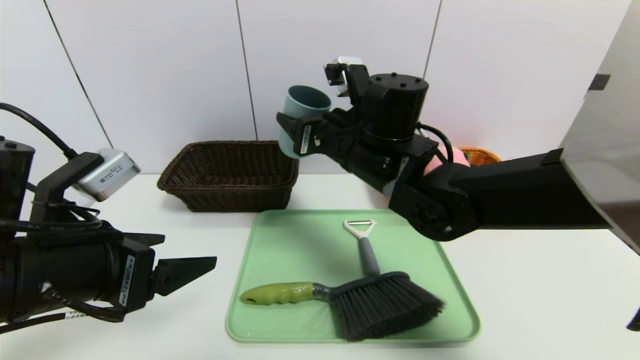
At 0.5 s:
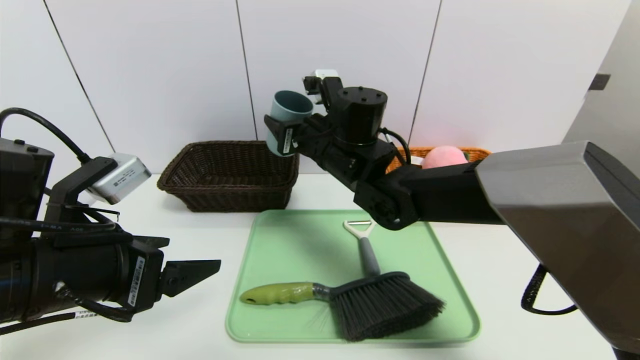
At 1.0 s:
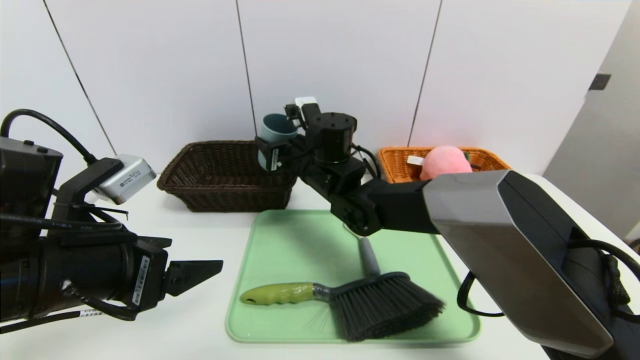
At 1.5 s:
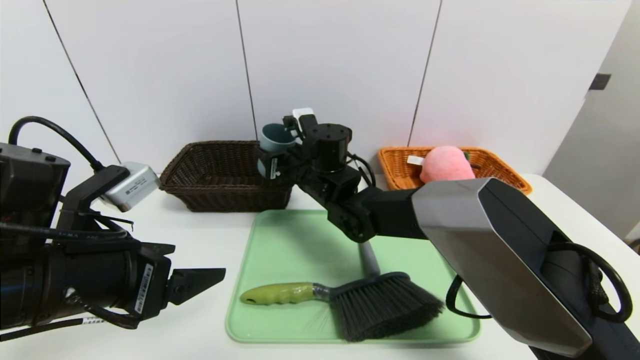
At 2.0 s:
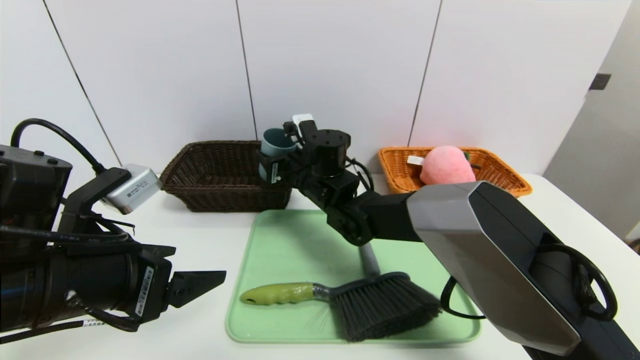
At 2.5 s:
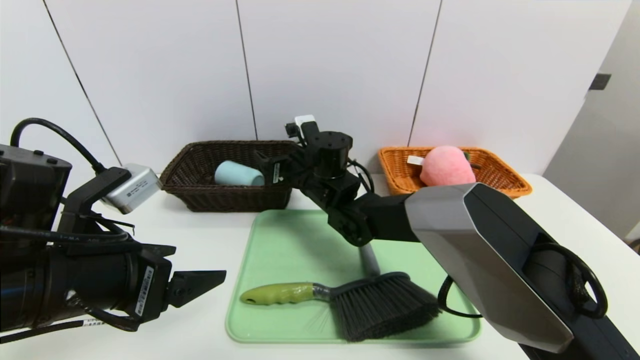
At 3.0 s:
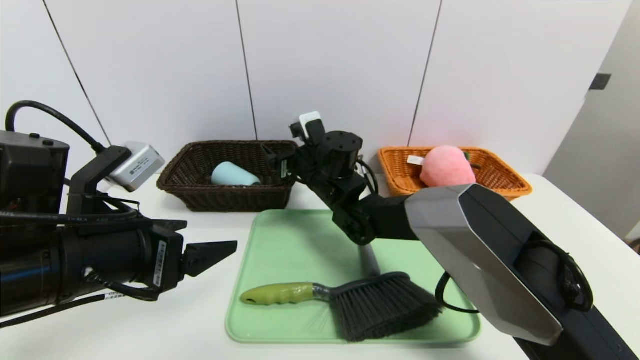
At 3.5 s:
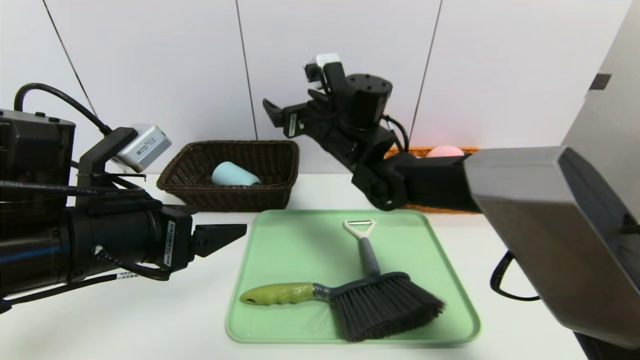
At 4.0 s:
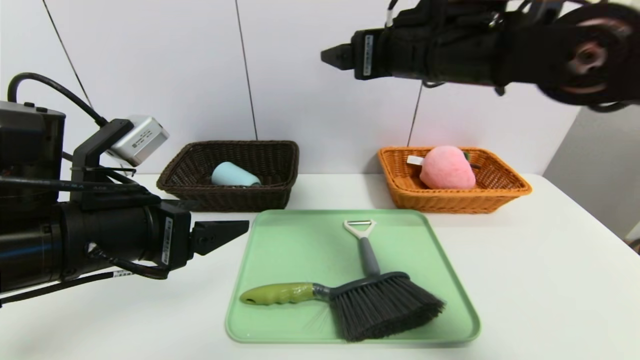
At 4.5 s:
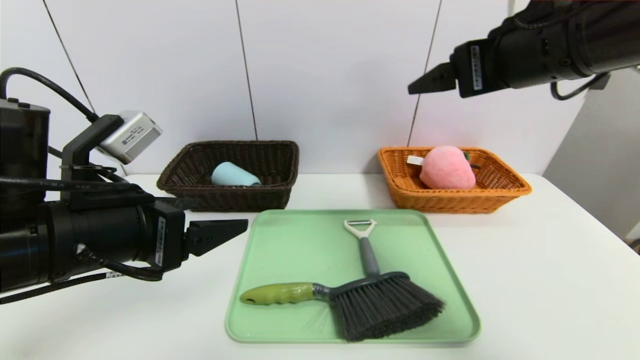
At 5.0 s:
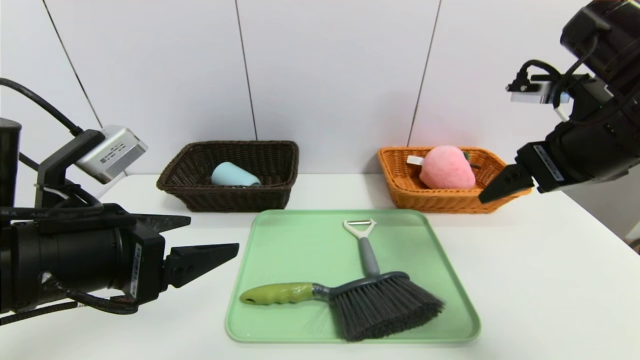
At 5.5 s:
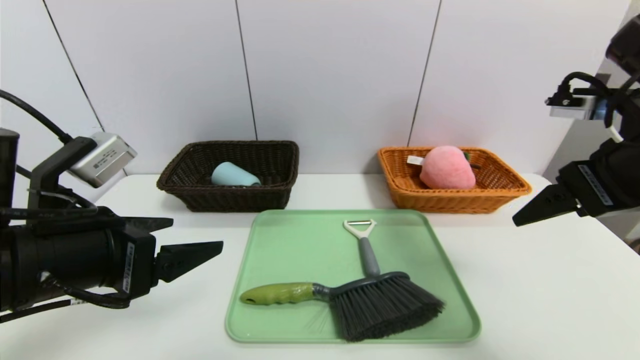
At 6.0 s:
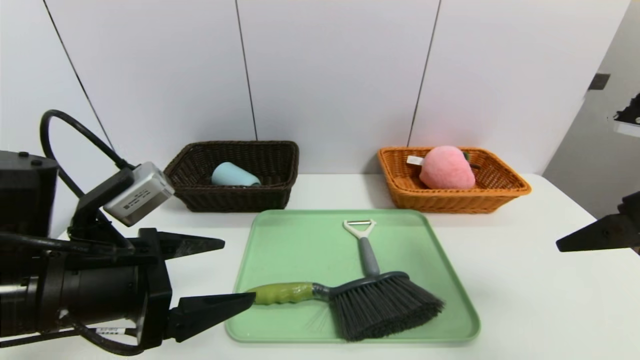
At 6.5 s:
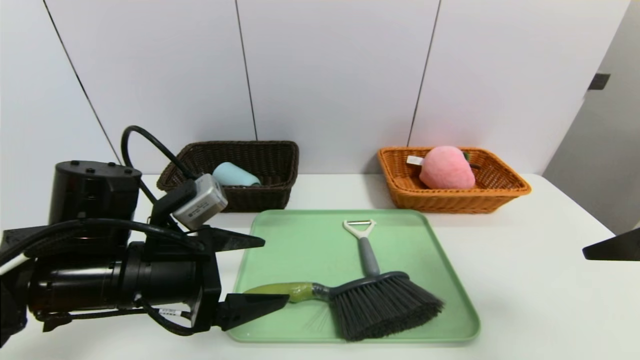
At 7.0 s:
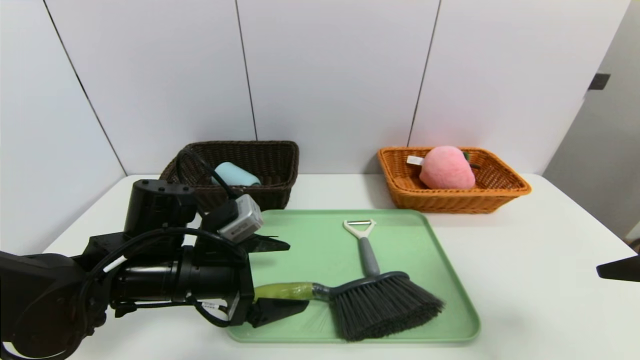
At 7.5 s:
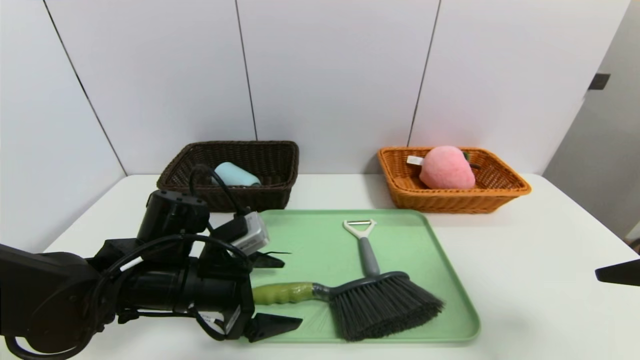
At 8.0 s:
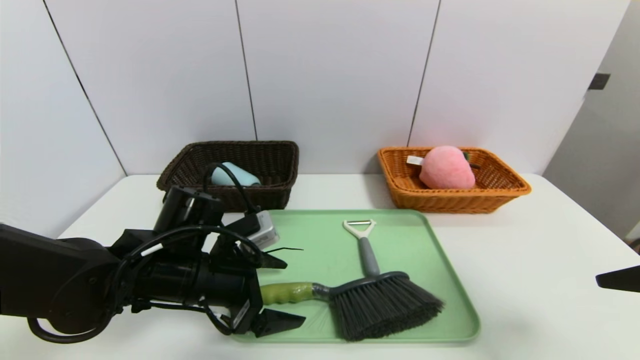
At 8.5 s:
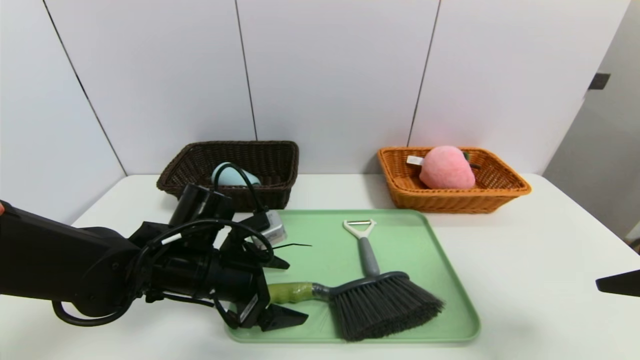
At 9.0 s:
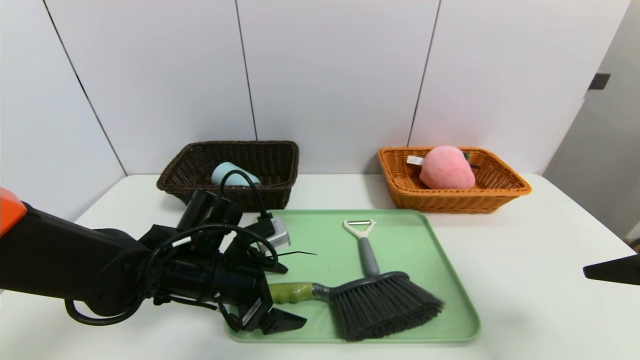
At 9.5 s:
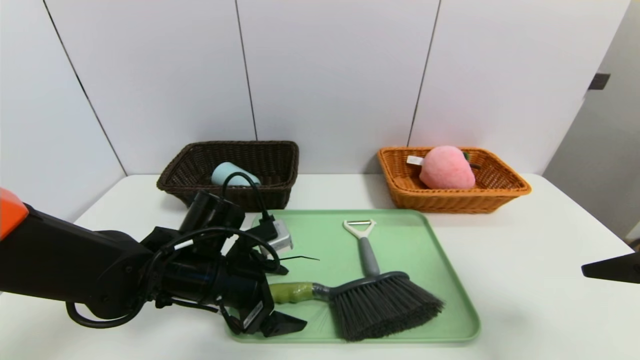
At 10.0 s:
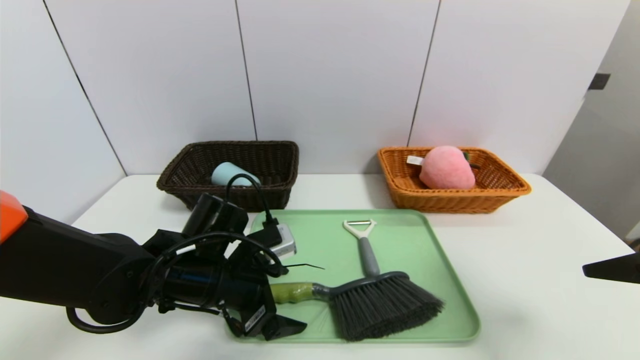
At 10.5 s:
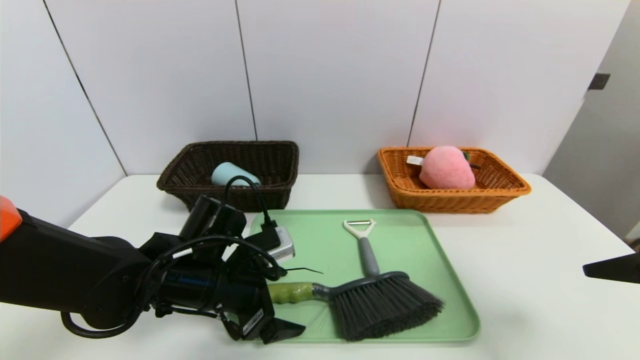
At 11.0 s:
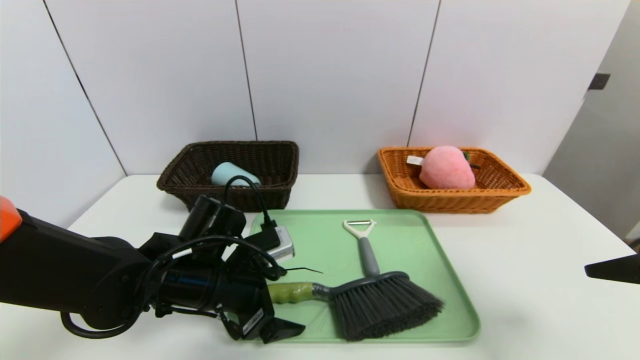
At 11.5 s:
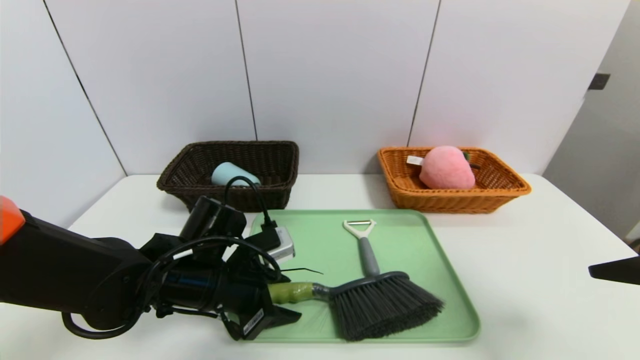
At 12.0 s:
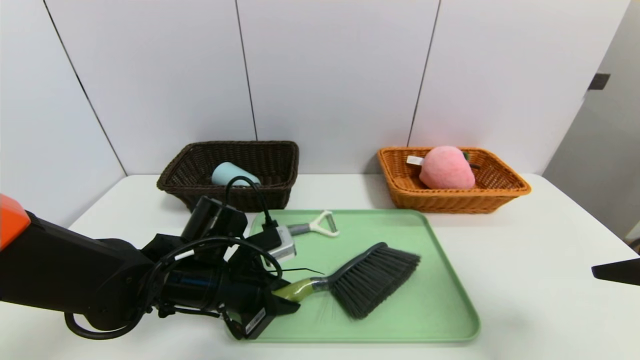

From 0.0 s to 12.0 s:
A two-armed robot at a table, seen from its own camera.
Task of the whole recording: place the food in the right basket with the right gripper, and place the non food items in the left basket with the left gripper.
From 0.0 s to 2.0 s: The right gripper heads downward, forward and to the left, covering approximately 15 cm.
From 2.0 s to 4.0 s: The right gripper heads upward, to the right and backward, covering roughly 25 cm, and opens its fingers.
From 4.0 s to 6.0 s: The right gripper shifts roughly 25 cm to the right and backward.
From 6.0 s to 8.0 s: The right gripper shifts by about 5 cm; the left gripper heads downward, forward and to the right, covering approximately 15 cm.
From 8.0 s to 10.0 s: There are only small adjustments of the grippers.
From 10.0 s to 12.0 s: The left gripper closes its fingers.

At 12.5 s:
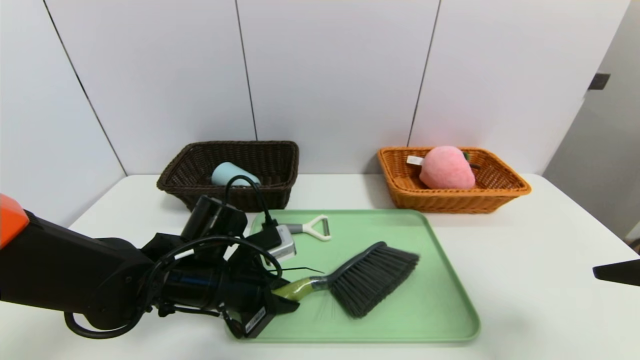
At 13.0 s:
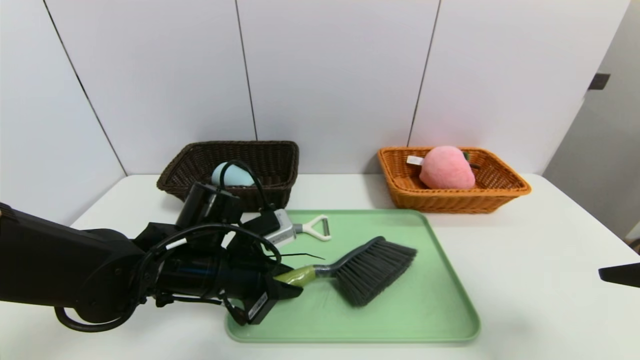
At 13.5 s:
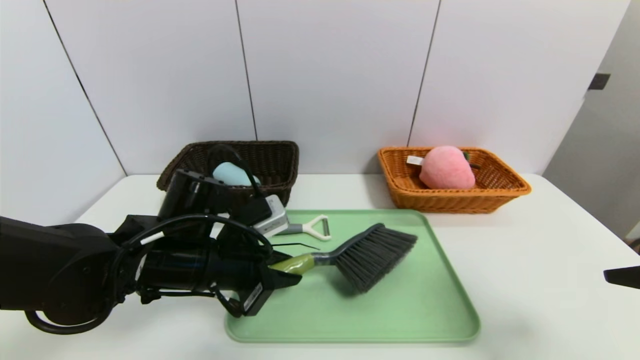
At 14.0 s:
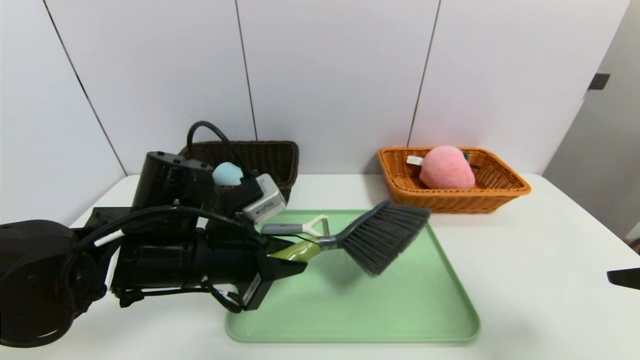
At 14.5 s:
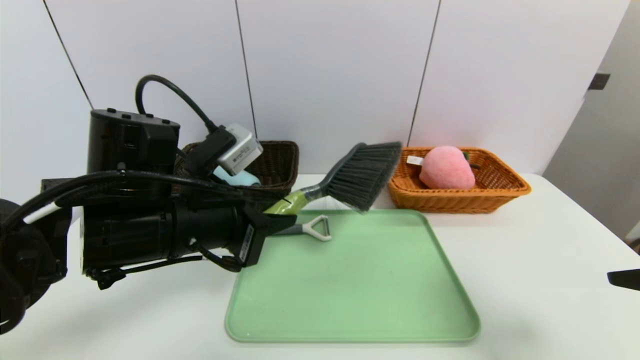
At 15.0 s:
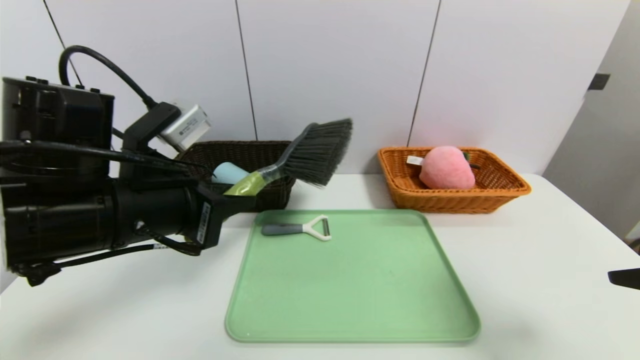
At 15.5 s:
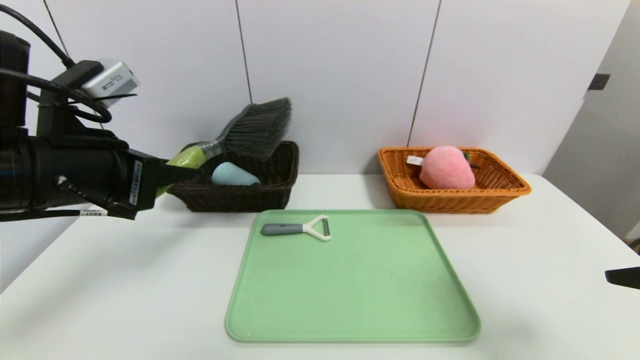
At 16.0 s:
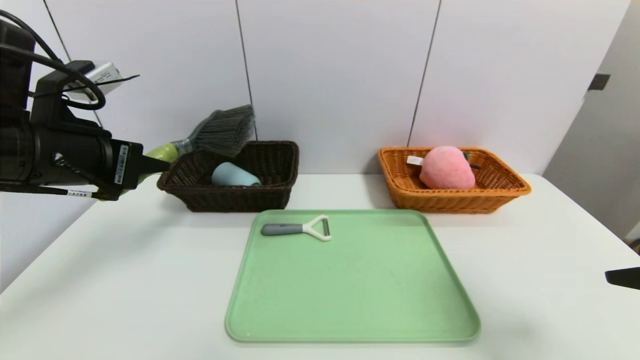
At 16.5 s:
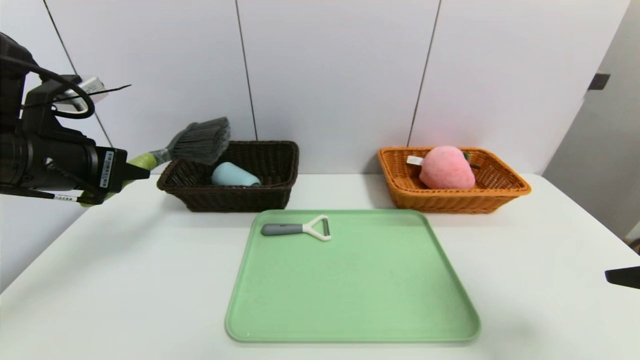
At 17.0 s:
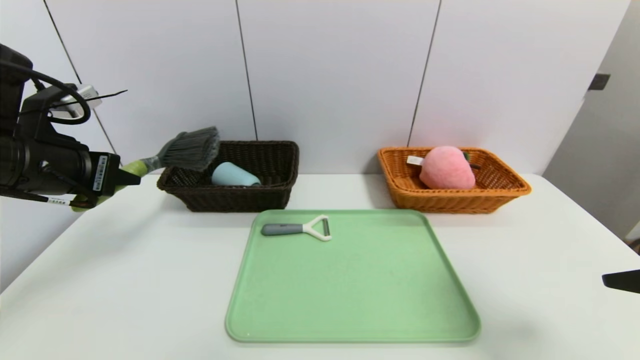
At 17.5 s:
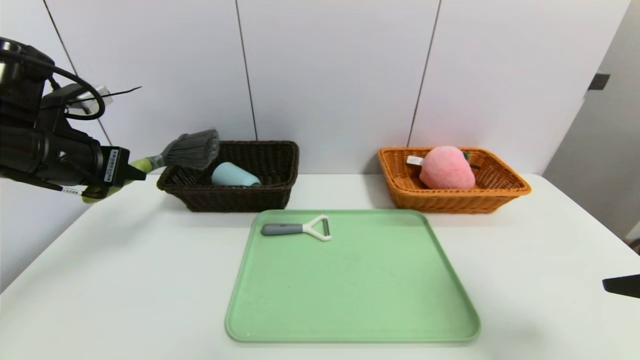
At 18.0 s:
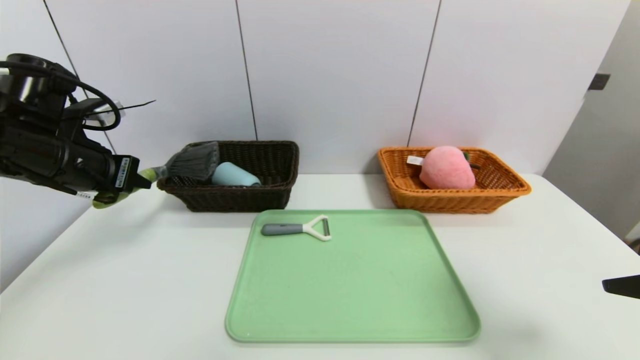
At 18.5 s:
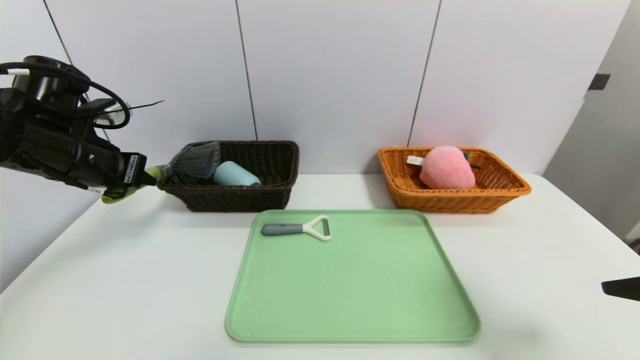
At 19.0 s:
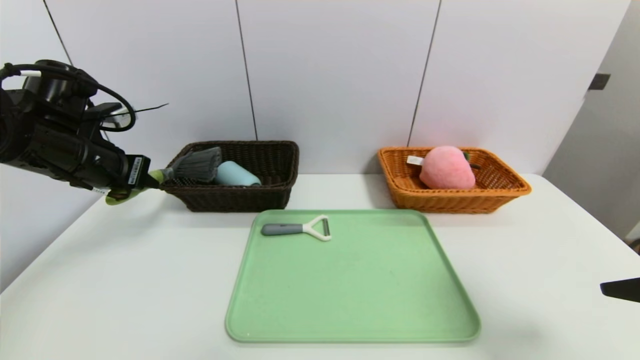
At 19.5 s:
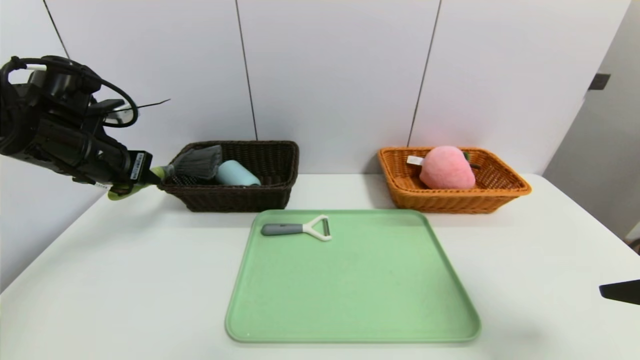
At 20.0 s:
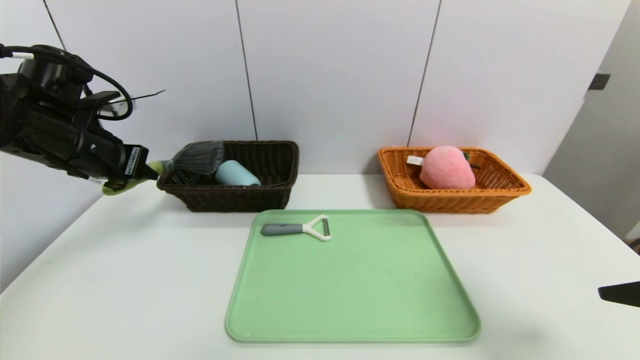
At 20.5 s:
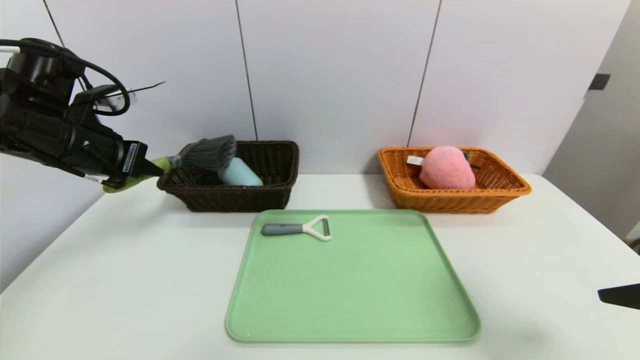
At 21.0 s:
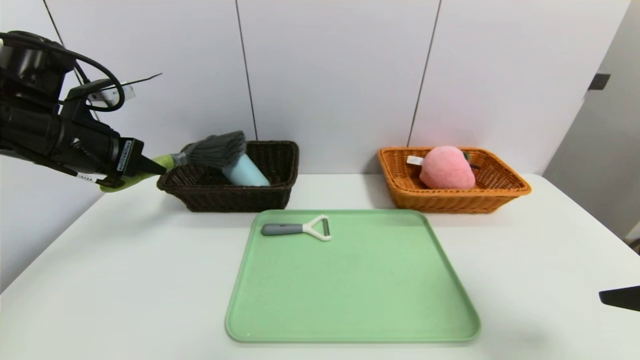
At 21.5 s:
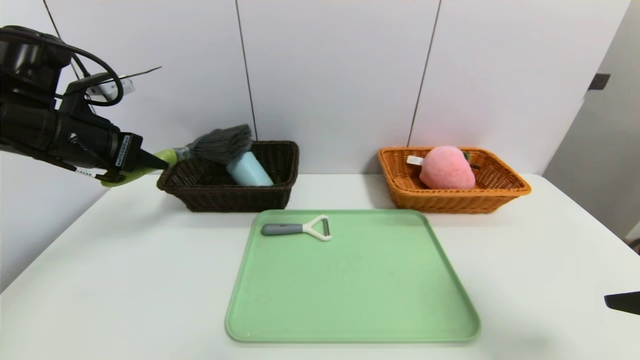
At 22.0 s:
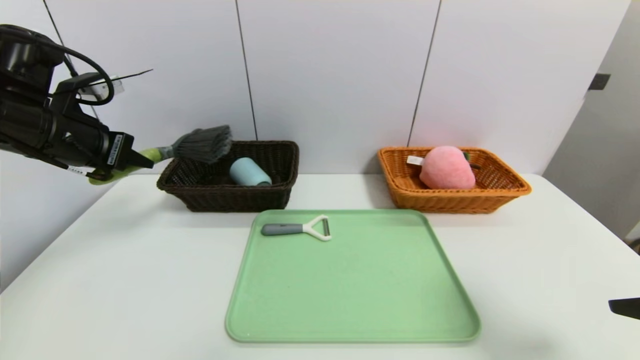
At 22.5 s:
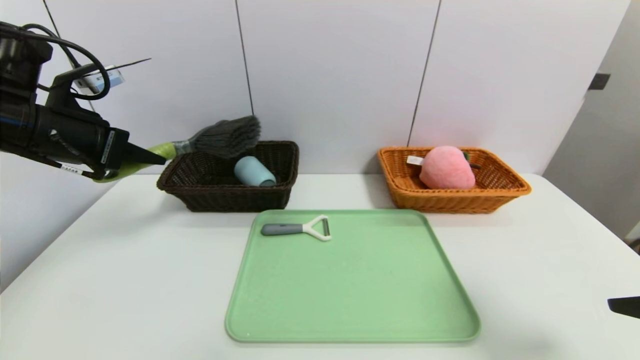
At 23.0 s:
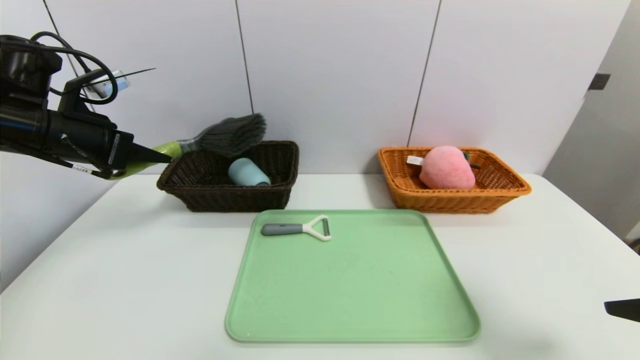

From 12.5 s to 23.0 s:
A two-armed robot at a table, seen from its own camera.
Task of the whole recording: place the food in the right basket with the right gripper, and place the non food items in the left basket with the left gripper.
From 12.5 s to 14.5 s: The left gripper heads upward, covering roughly 10 cm.
From 14.5 s to 16.5 s: The left gripper shifts approximately 15 cm to the left and upward.
From 16.5 s to 19.0 s: The left gripper goes some 5 cm forward.
From 19.0 s to 21.0 s: The grippers stay close to where they were, moving slightly.
From 21.0 s to 23.0 s: There are only small adjustments of the grippers.
